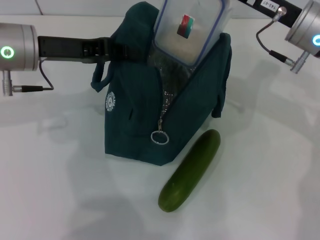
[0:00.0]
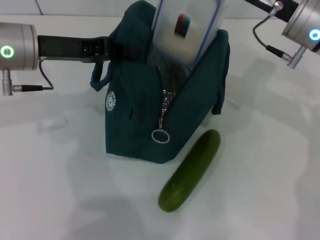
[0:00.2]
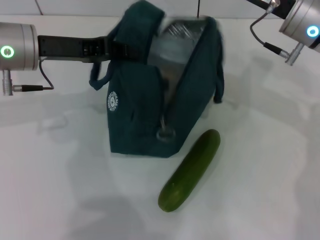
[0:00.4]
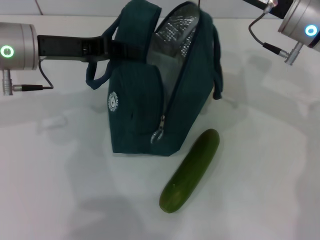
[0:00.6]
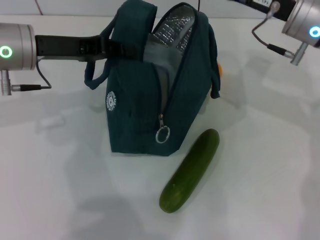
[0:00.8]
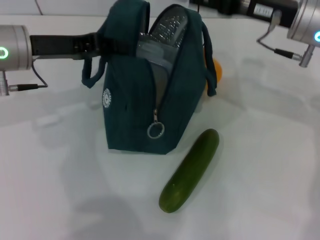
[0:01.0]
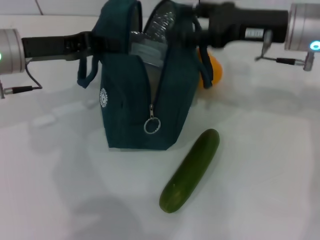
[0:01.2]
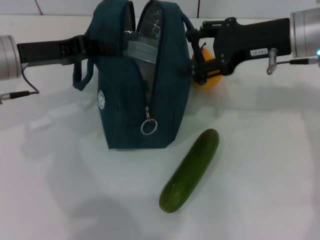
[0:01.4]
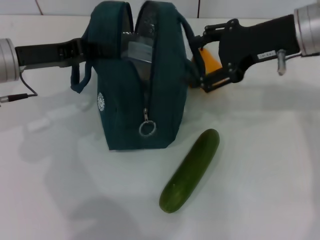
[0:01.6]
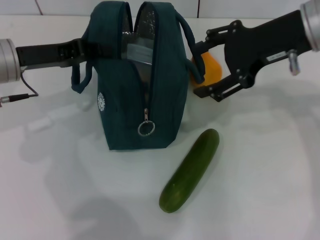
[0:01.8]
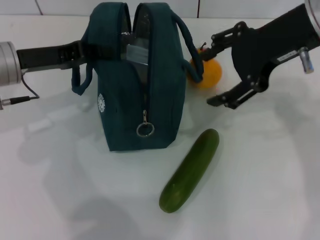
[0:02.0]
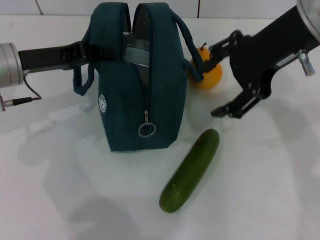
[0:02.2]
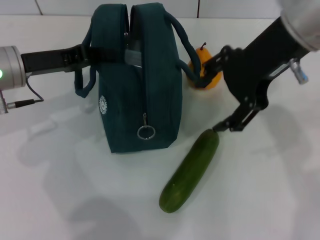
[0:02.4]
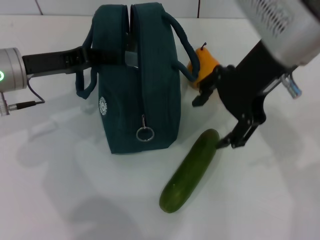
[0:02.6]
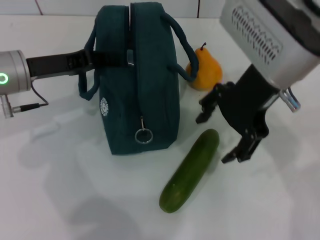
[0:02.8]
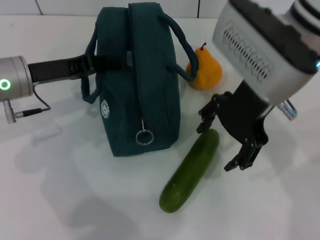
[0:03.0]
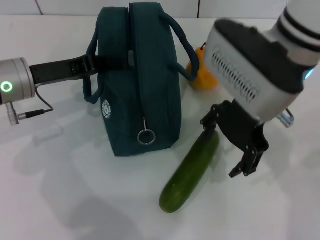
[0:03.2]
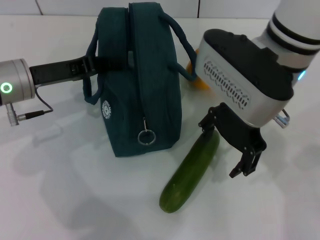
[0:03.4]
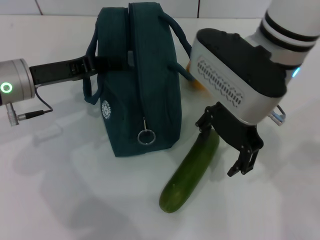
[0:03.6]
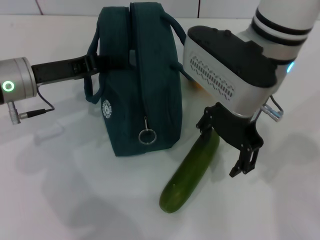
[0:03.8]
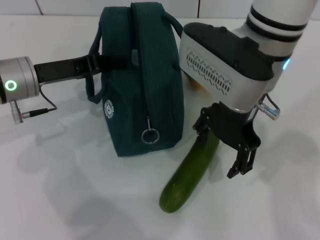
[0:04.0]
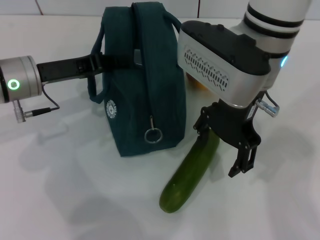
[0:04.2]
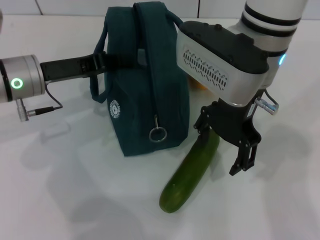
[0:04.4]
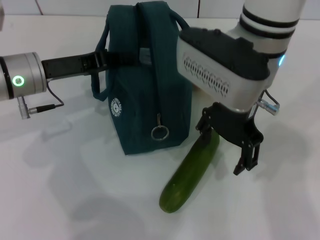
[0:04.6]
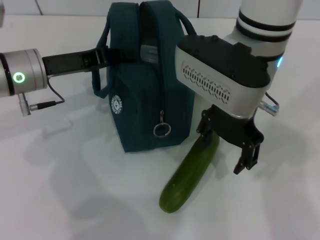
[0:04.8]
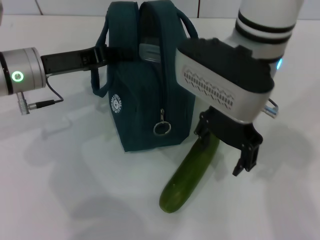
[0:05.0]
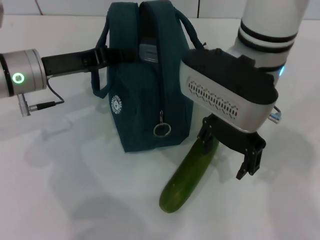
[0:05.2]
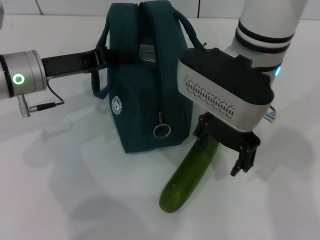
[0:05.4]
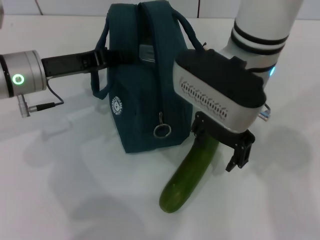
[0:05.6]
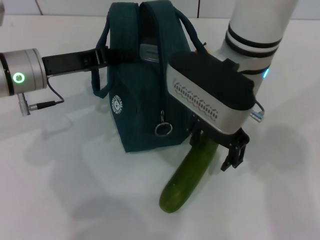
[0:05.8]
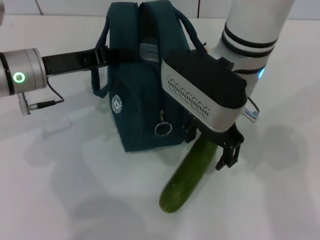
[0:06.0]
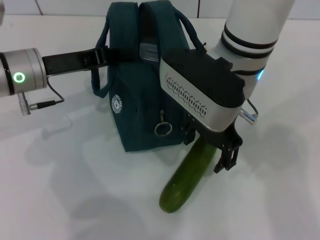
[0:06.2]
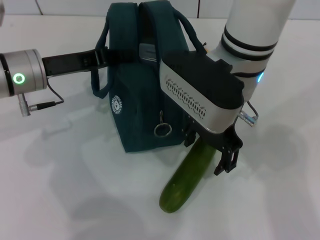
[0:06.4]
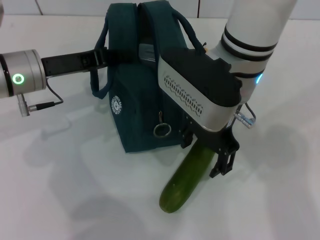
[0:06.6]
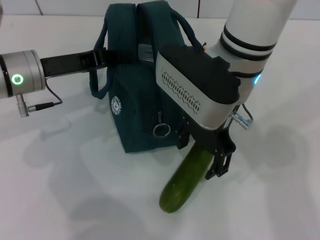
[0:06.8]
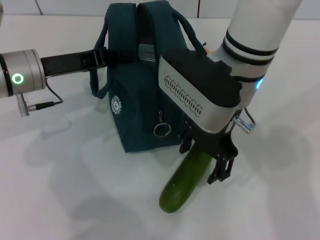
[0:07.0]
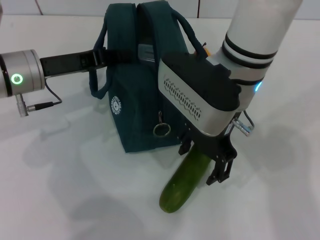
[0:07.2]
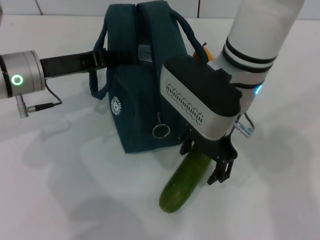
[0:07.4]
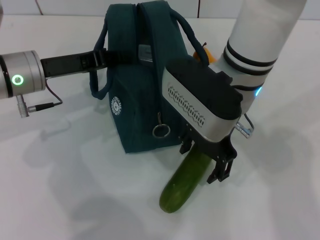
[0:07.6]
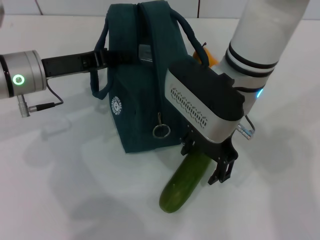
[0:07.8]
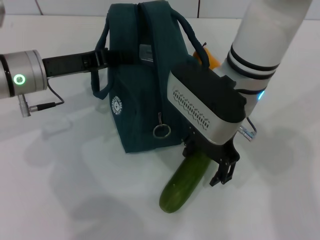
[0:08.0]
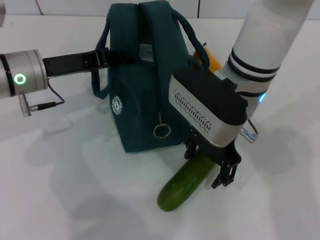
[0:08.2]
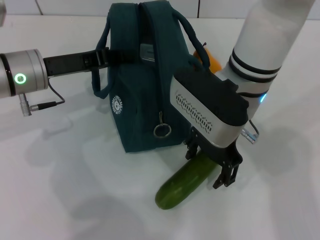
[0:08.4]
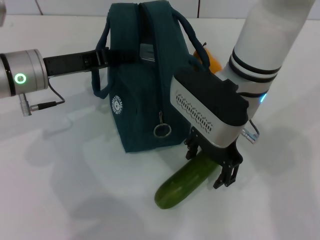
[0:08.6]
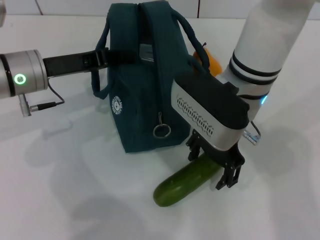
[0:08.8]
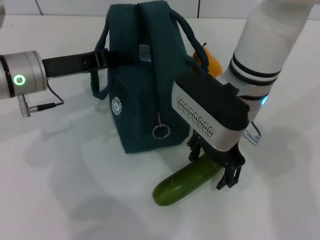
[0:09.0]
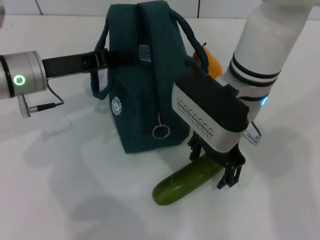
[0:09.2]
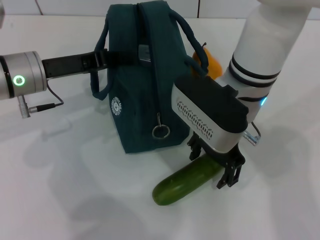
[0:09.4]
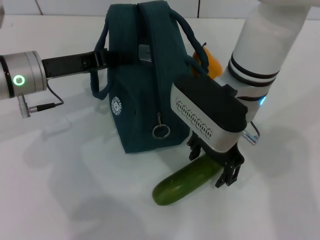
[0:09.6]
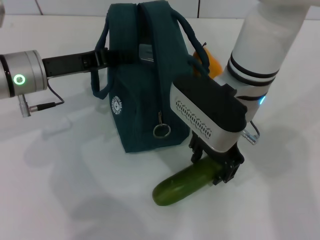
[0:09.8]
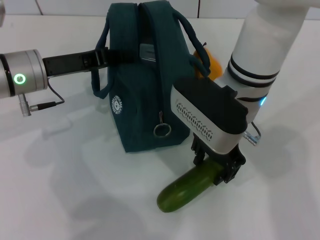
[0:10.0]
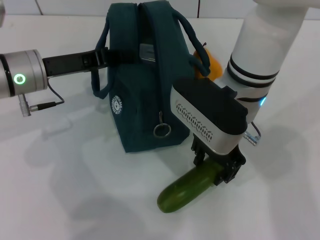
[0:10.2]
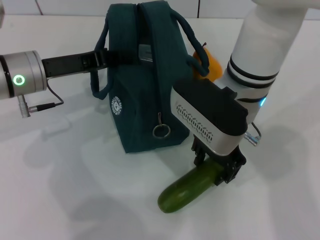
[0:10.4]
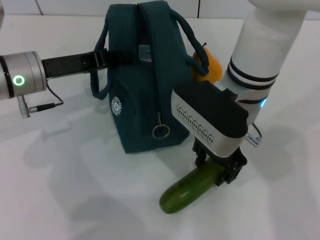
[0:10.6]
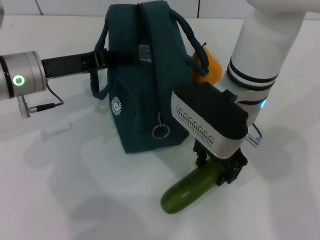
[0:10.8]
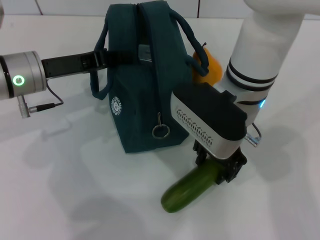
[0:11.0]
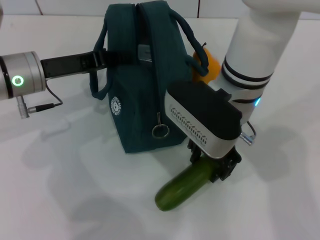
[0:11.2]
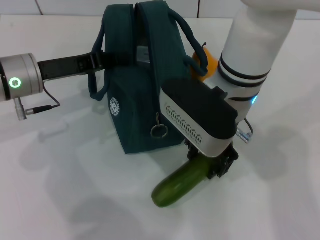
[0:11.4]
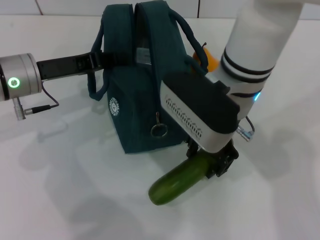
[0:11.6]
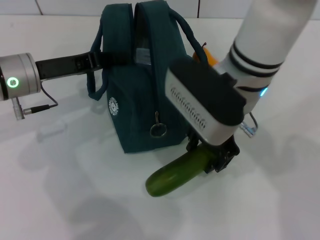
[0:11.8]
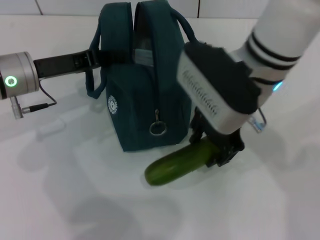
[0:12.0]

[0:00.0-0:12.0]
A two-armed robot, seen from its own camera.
Step, 0:01.2 to 0:10.6: Pick up the cucumber with your right hand.
0:00.0 to 0:01.6: The right gripper heads upward, covering approximately 5 cm, and opens its fingers.
0:01.6 to 0:03.0: The right gripper goes approximately 5 cm to the left.
0:03.0 to 0:04.4: The right gripper shifts by approximately 5 cm.
0:06.0 to 0:09.0: There are only small adjustments of the grippers.
0:09.0 to 0:10.4: The two grippers keep their place.

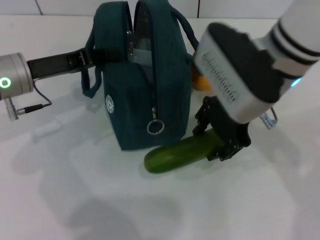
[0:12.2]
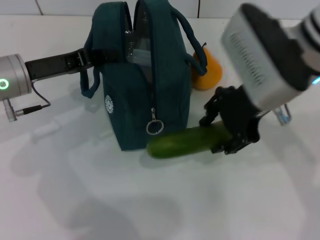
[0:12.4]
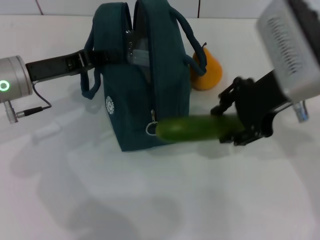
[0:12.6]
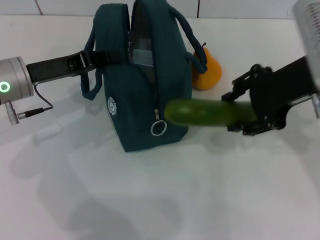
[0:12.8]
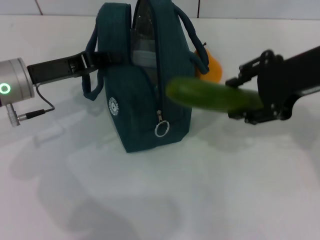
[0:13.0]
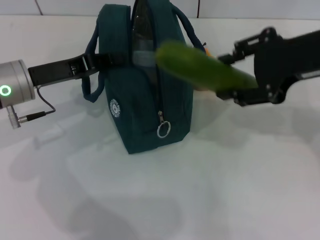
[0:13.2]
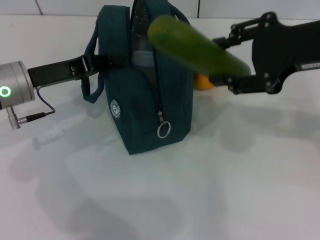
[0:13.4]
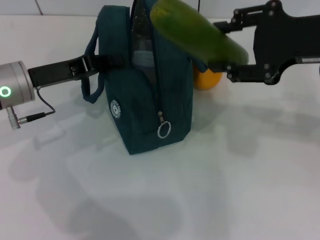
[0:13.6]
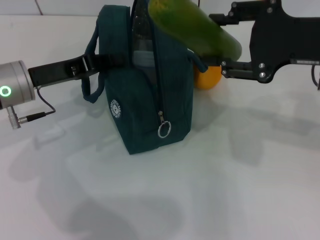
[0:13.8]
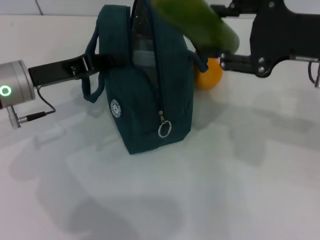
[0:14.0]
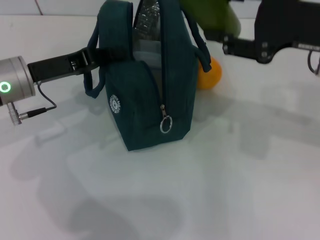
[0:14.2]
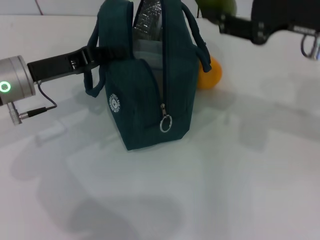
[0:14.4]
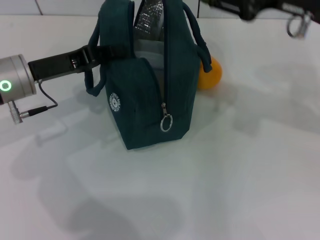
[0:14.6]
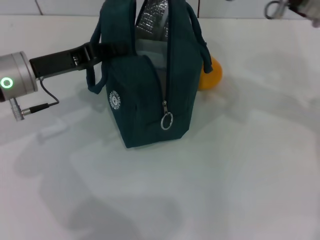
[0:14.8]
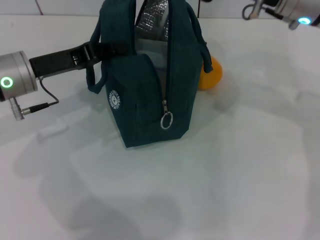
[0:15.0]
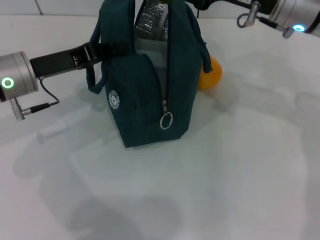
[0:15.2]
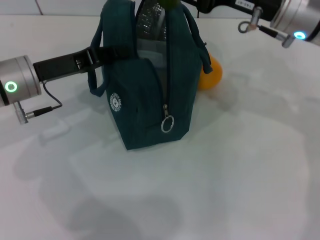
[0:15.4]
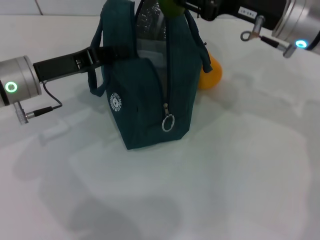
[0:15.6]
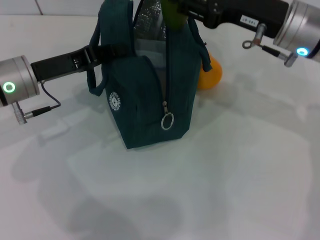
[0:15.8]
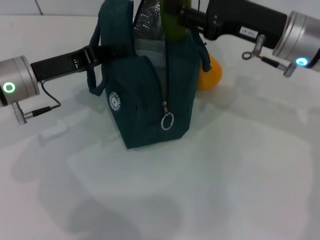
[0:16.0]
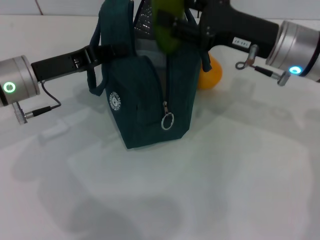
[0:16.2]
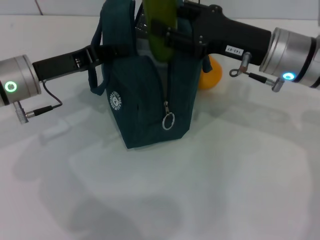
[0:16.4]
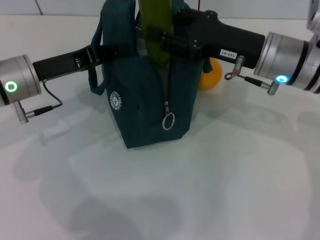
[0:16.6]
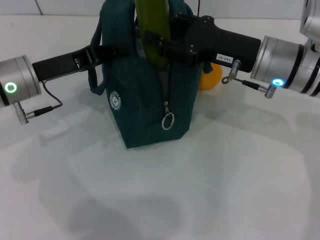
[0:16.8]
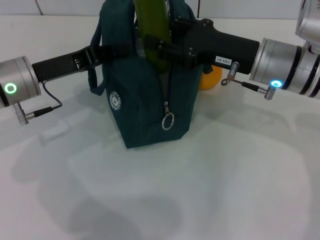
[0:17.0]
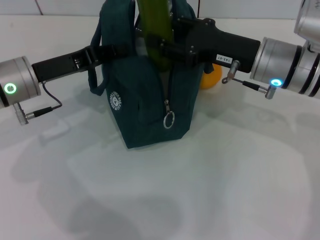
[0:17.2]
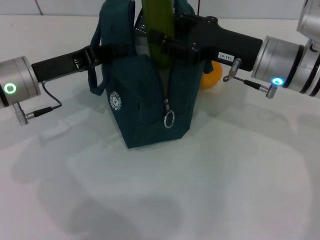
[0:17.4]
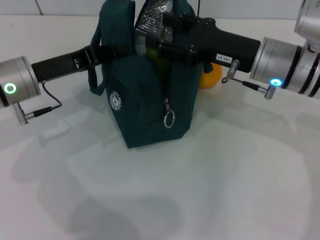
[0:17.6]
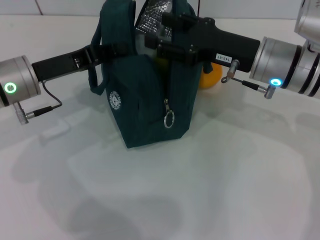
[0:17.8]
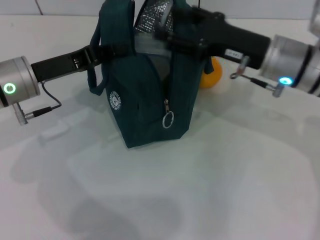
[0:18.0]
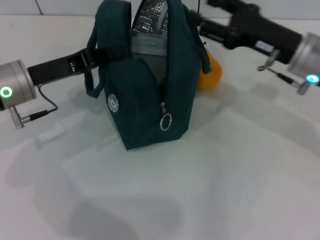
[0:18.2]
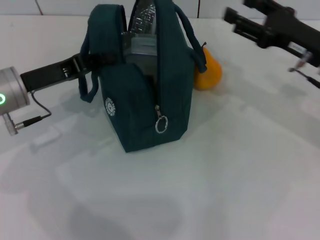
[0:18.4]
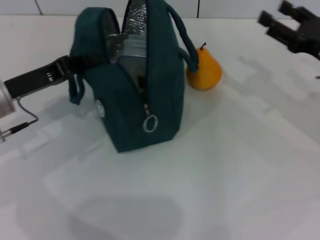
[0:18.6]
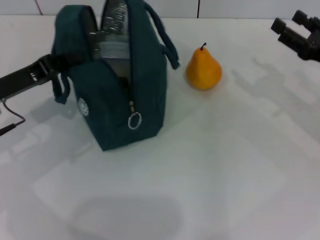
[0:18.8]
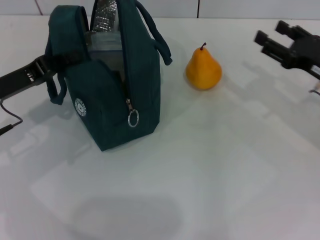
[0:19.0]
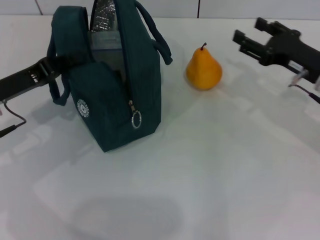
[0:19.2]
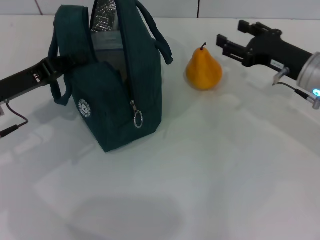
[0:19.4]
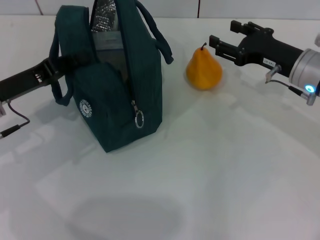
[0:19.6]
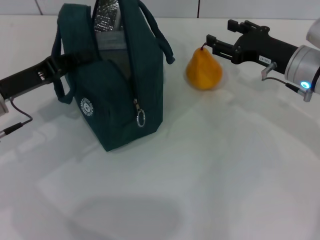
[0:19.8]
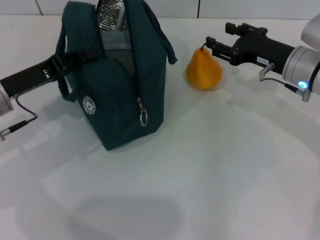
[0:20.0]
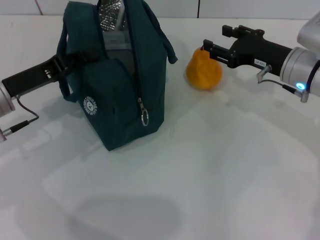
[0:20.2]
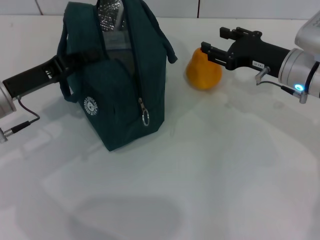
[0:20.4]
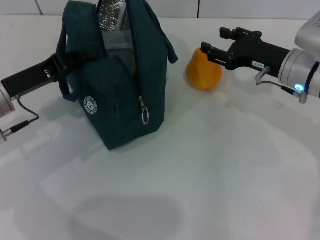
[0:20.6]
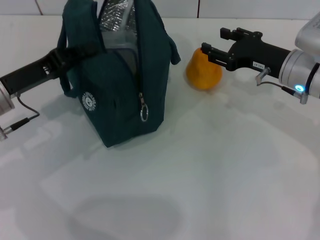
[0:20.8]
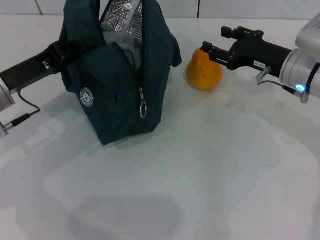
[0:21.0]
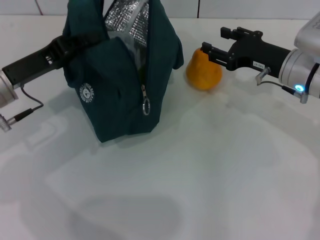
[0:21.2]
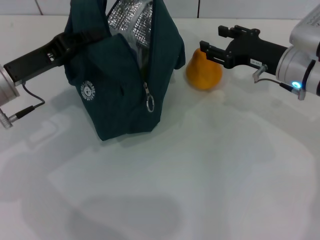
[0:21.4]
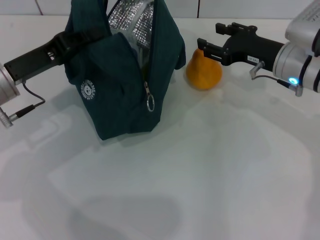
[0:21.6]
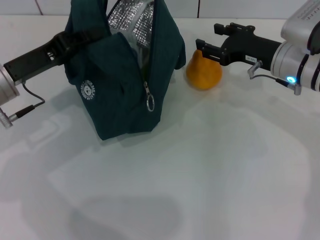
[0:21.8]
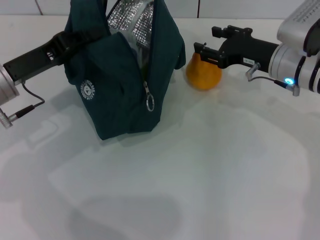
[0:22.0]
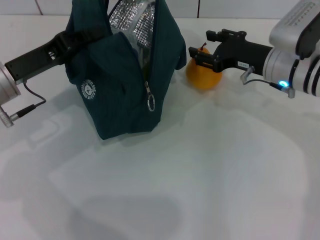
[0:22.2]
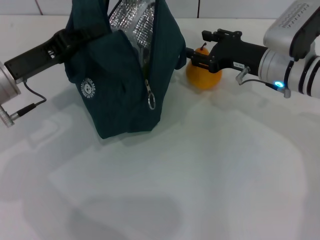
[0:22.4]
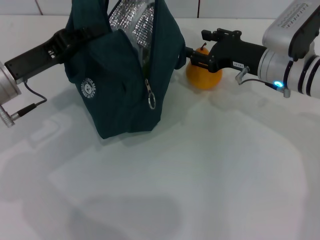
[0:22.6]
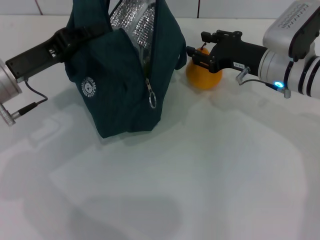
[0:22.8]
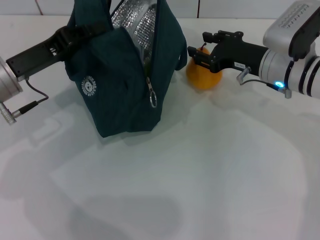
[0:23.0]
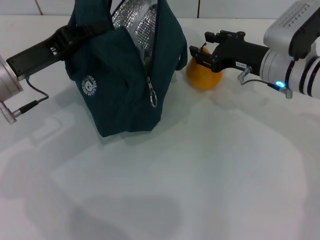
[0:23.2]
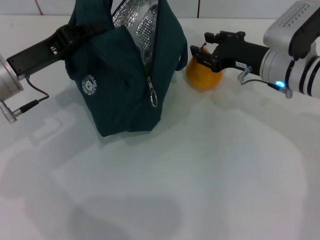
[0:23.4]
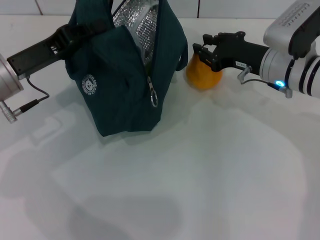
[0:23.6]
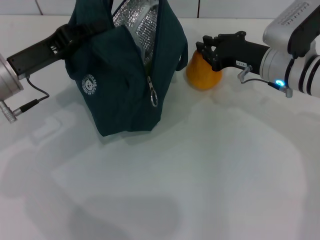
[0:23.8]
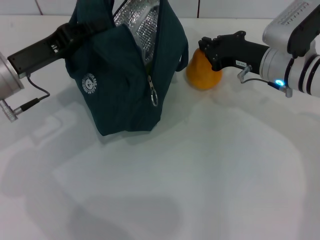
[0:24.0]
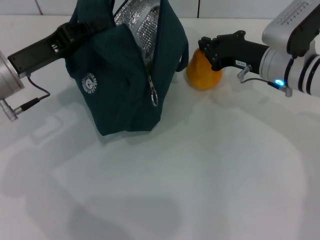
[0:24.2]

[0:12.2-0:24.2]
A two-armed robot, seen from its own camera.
Step, 0:12.2 to 0:18.2: Put the cucumber into the lunch bag with your right hand.
0:12.2 to 0:13.8: The right gripper heads to the right, covering some 10 cm.
0:13.8 to 0:15.2: The right gripper moves forward and to the left, about 10 cm.
0:15.2 to 0:16.6: The right gripper goes some 5 cm downward.
0:16.6 to 0:18.2: The grippers stay close to where they were, moving slightly.
0:18.2 to 0:19.8: The right gripper moves some 10 cm to the right and comes back.
0:19.8 to 0:22.6: There are only small adjustments of the grippers.
0:22.6 to 0:24.2: The right gripper closes up.
